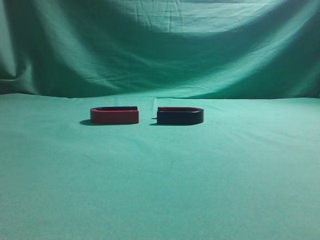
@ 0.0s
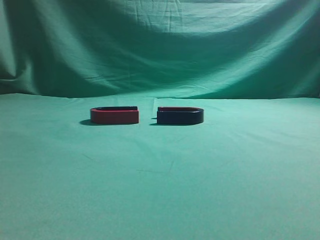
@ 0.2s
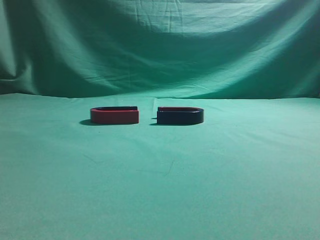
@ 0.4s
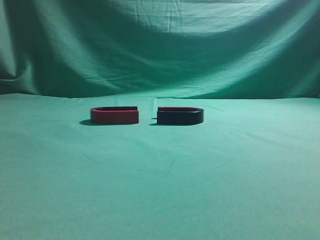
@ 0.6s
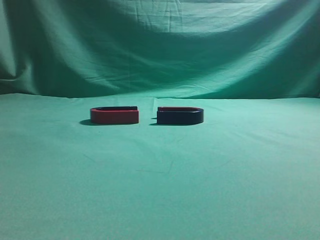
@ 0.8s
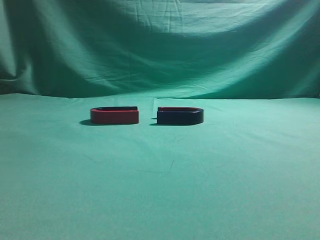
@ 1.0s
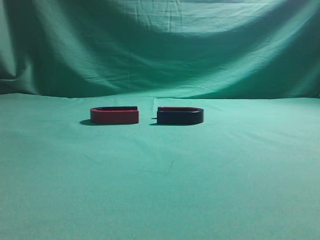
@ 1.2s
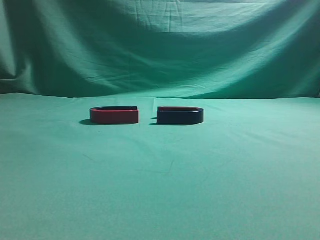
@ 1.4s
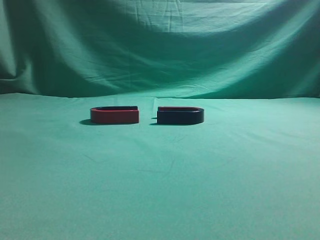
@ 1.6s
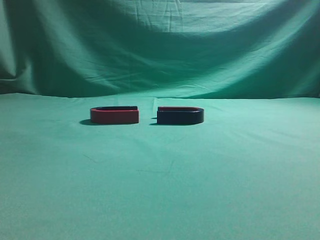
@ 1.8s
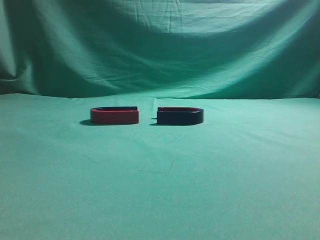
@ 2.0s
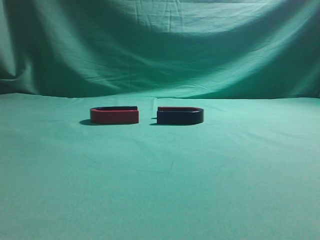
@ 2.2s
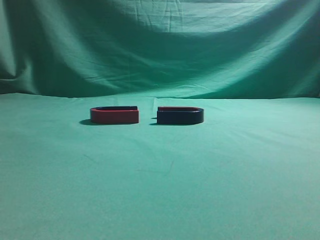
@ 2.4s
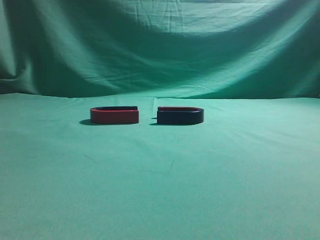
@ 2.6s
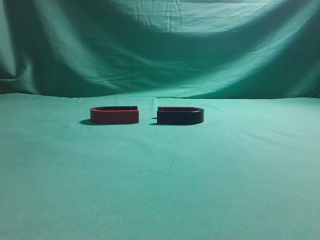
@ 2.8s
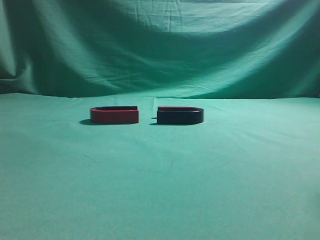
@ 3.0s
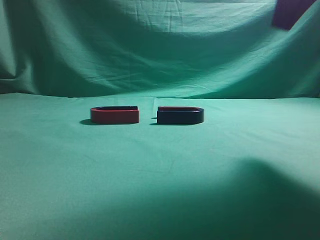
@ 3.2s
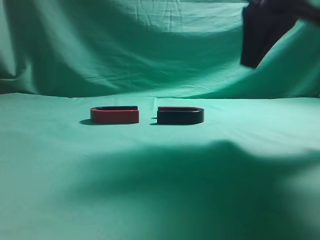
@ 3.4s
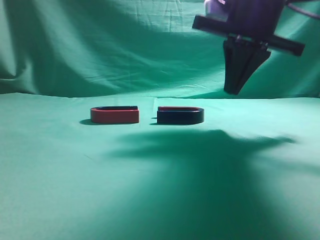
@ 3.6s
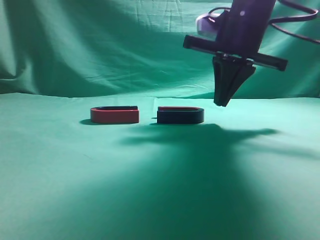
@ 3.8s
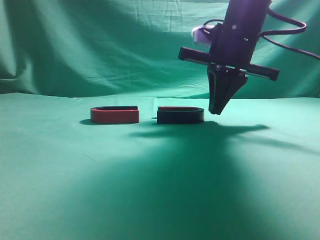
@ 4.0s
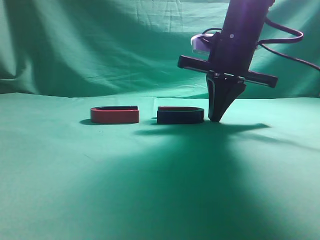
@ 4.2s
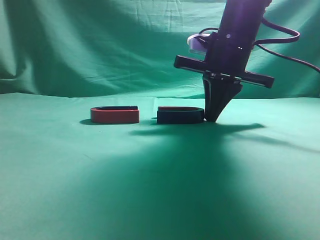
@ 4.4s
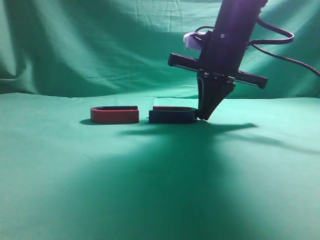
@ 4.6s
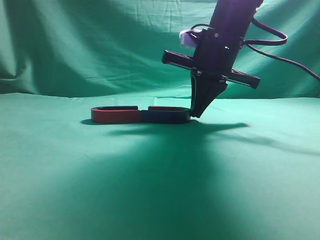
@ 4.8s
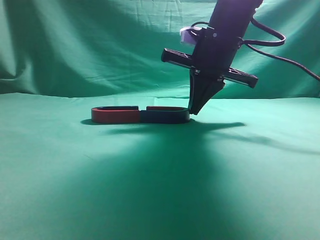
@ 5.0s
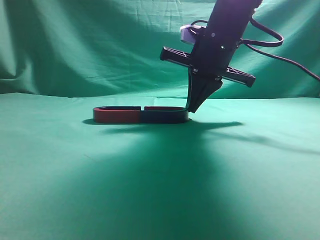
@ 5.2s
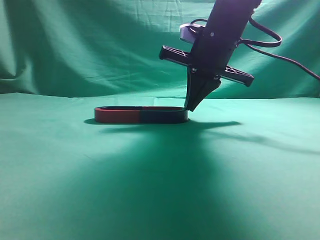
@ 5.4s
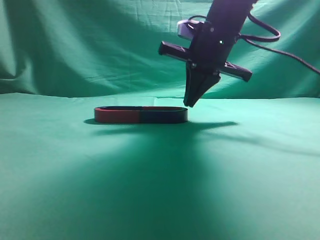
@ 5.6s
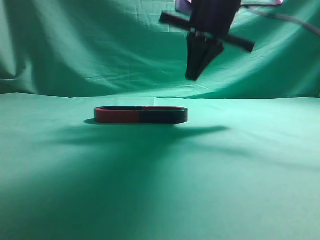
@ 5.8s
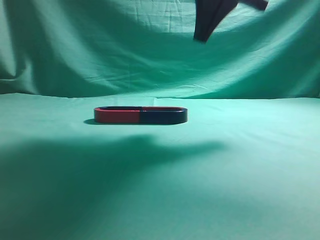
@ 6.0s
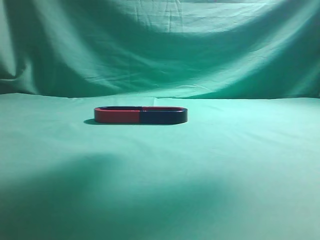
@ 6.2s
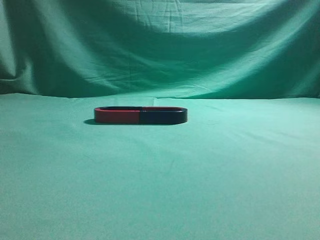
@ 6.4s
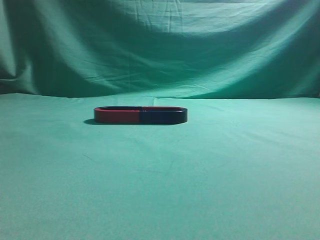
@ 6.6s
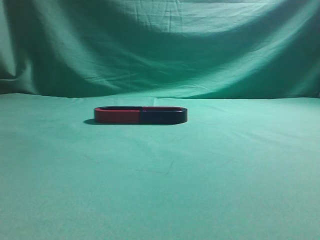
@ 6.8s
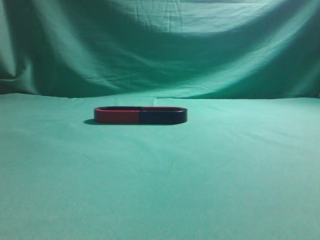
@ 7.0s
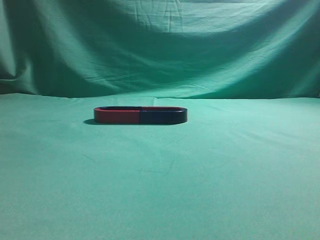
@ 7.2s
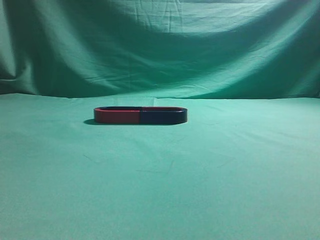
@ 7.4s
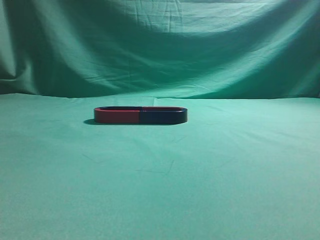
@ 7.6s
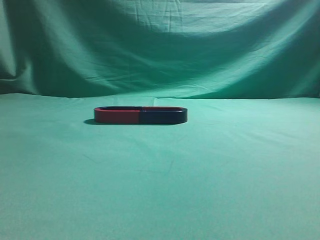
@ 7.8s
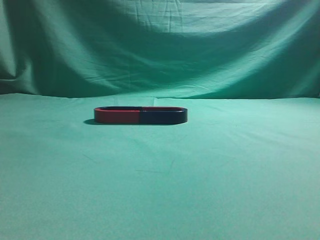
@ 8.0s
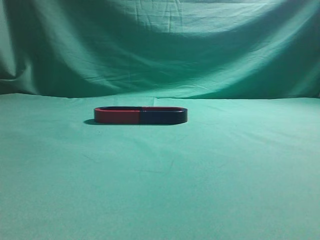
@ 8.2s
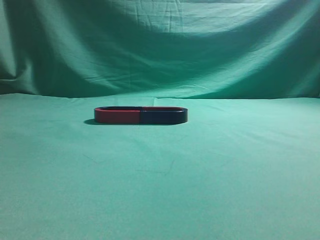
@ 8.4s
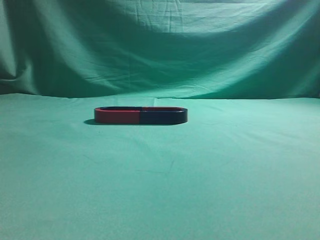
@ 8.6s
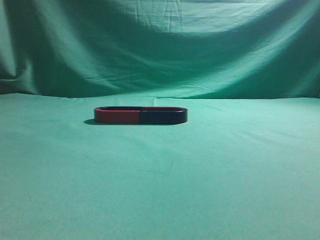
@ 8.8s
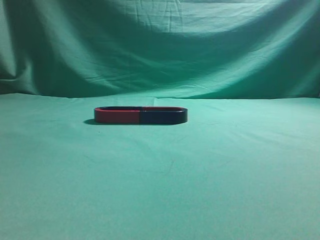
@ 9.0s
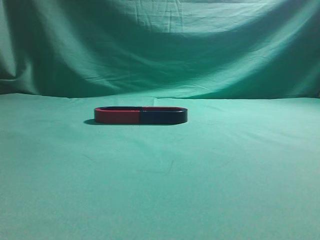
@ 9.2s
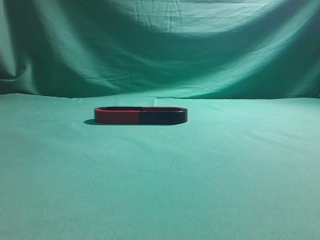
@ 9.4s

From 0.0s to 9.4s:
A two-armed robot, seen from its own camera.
Task of the whole recording: push the magnet on the table from its original position to another position.
Step, from 0.0s to 5.6s: Push the magnet on the right to connect the magnet on the left.
From 1.6s to 3.2s: The right gripper moves forward and to the left, about 25 cm.
From 3.2s to 4.8s: The right gripper heads forward, downward and to the left, covering approximately 20 cm.
From 4.8s to 6.2s: The right gripper is displaced upward by roughly 20 cm.
From 6.2s to 7.8s: The right gripper goes roughly 30 cm backward and to the right.
